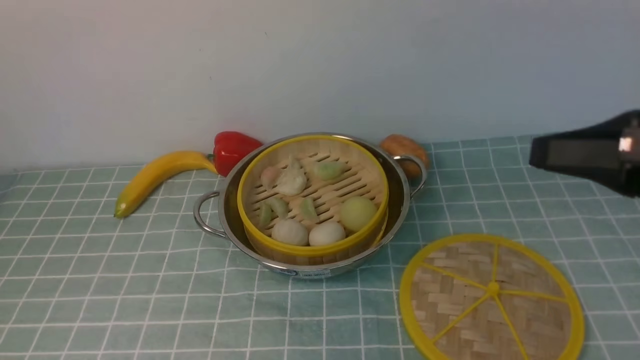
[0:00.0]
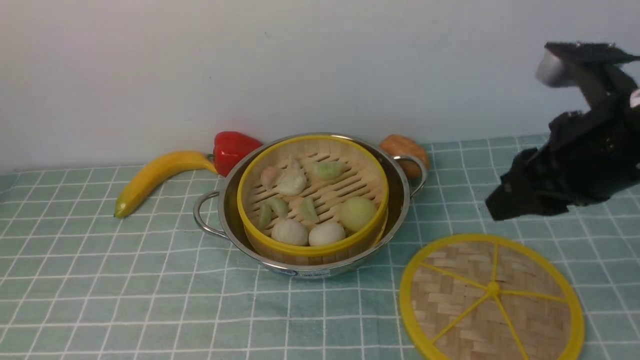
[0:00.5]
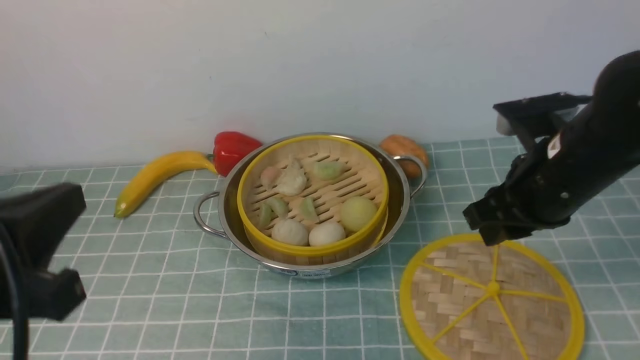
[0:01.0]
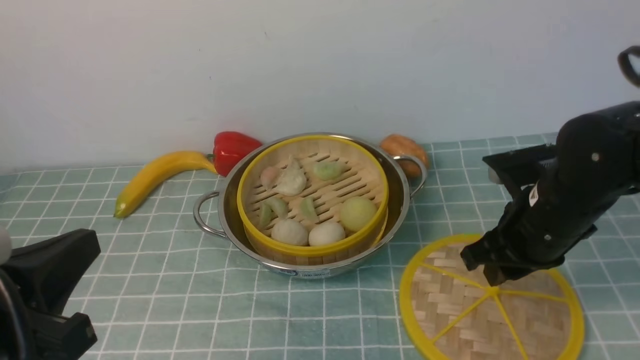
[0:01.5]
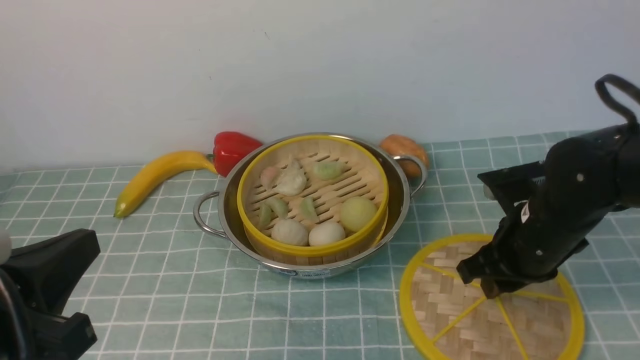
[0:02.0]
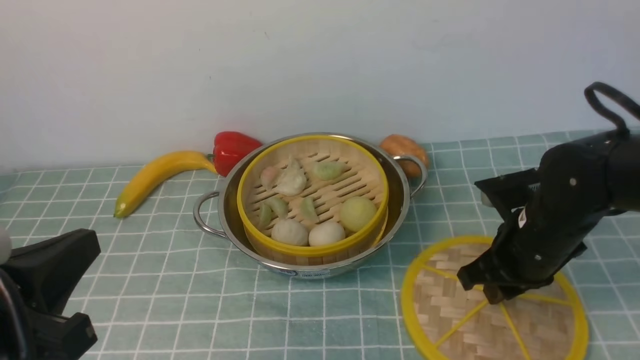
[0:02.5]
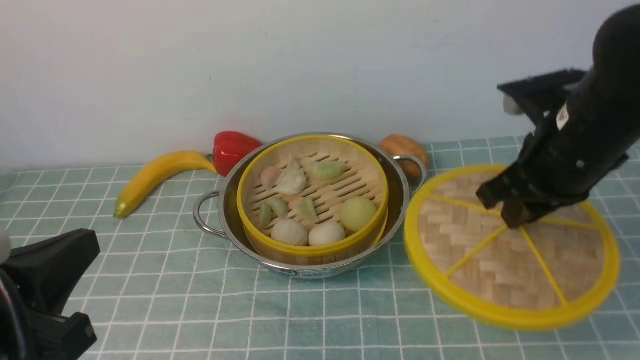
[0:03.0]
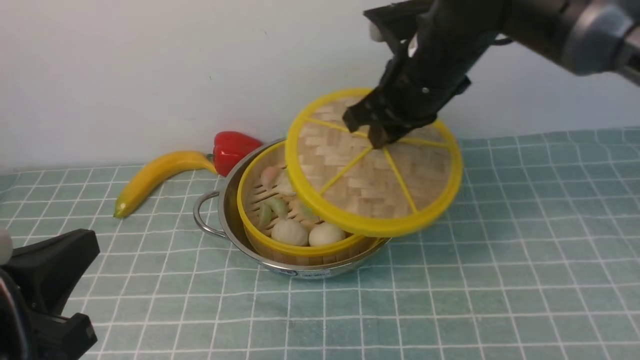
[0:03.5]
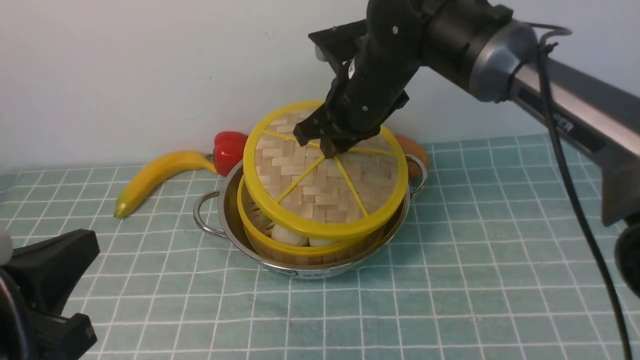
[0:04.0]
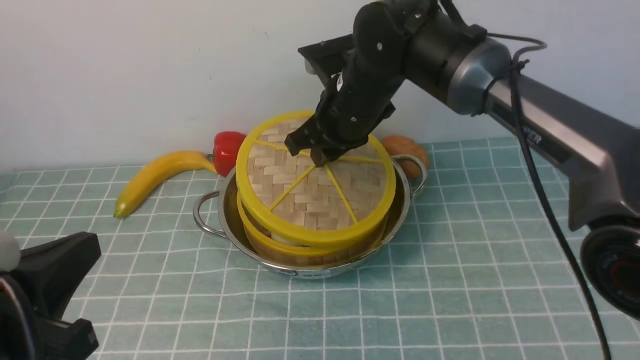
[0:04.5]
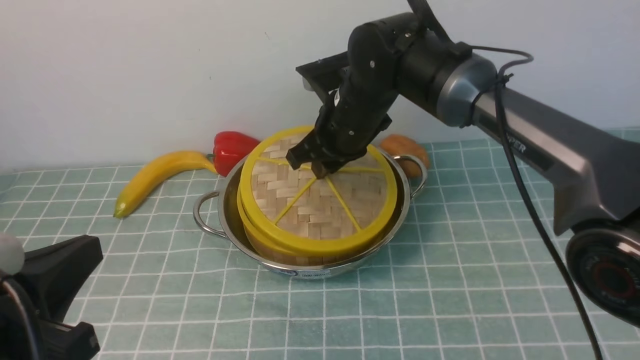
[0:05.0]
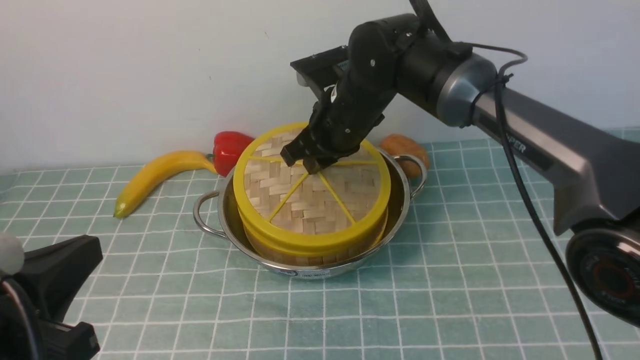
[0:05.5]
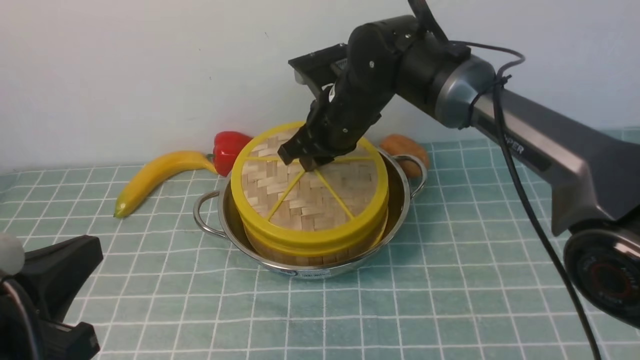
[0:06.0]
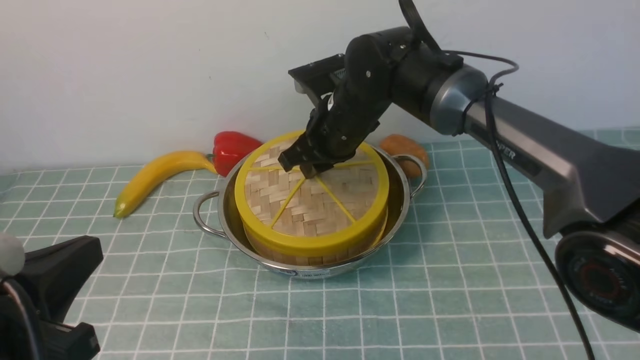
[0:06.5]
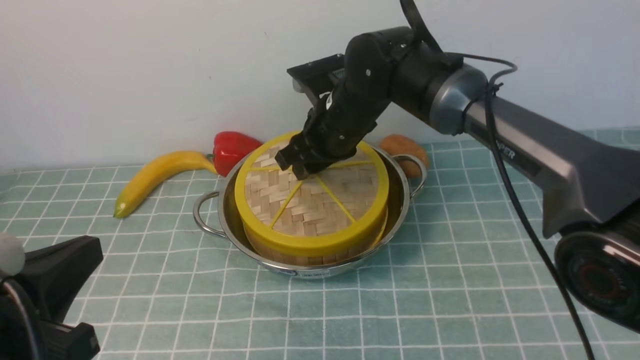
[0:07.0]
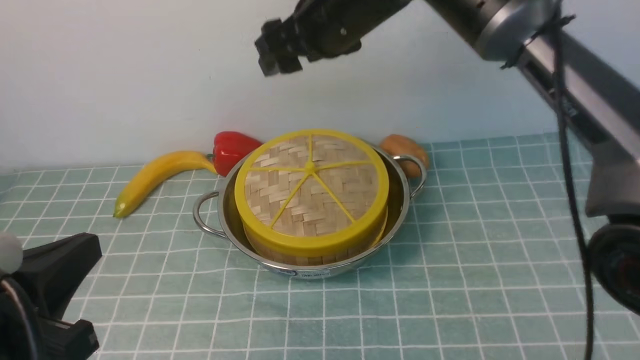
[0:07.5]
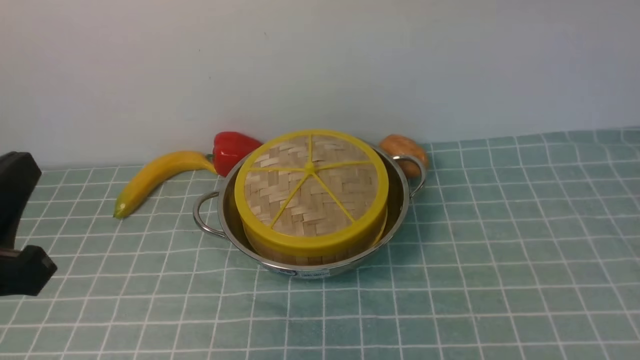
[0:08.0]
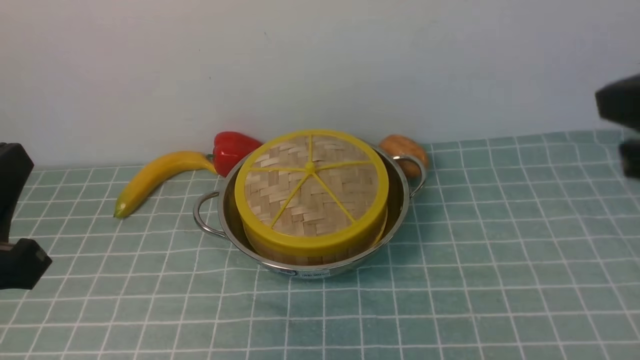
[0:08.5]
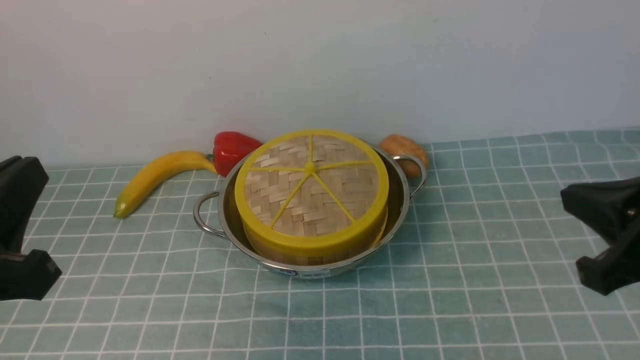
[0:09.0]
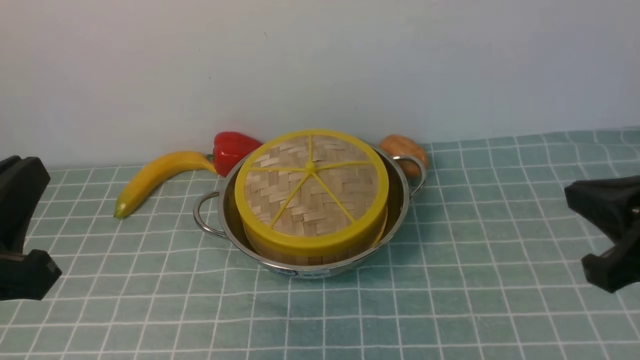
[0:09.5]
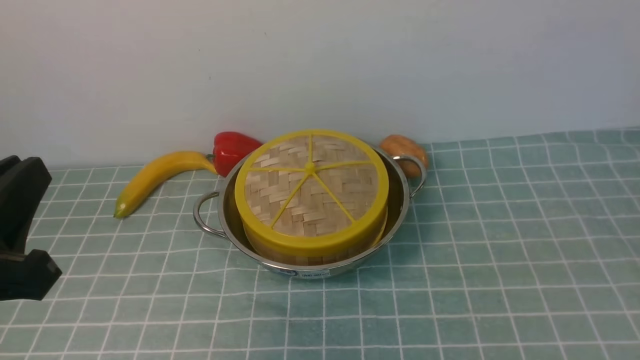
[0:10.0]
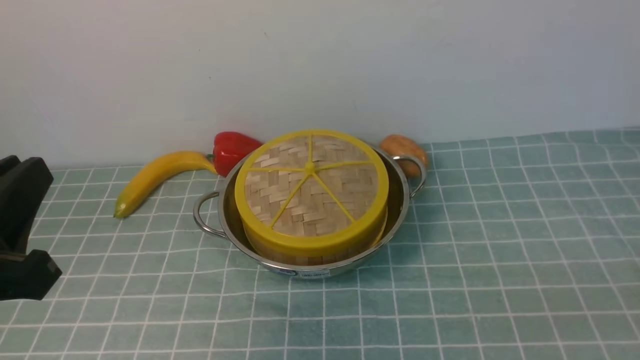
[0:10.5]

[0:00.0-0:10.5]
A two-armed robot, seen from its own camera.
Task of the whole recording: place the steamer in the pot on the blue tablecloth, and put the lid on the steamer.
Step, 0:00.0 to 0:02.5: use the right arm to lift the lid of the steamer.
Step, 0:03.0 to 0:07.5: use the right arm to place the steamer lid on the steamer.
0:00.0 to 0:02.0: The right gripper heads downward and forward, covering approximately 20 cm; the left gripper is displaced downward and backward by approximately 30 cm.
0:02.0 to 0:04.0: The right gripper shifts roughly 20 cm to the left, forward and upward.
0:04.0 to 0:06.5: The right gripper is displaced downward by some 5 cm.
0:06.5 to 0:08.5: The right gripper moves backward, to the right and upward, approximately 35 cm, and opens, then closes again.
0:08.5 to 0:10.5: The right gripper heads downward, backward and to the right, covering approximately 25 cm.

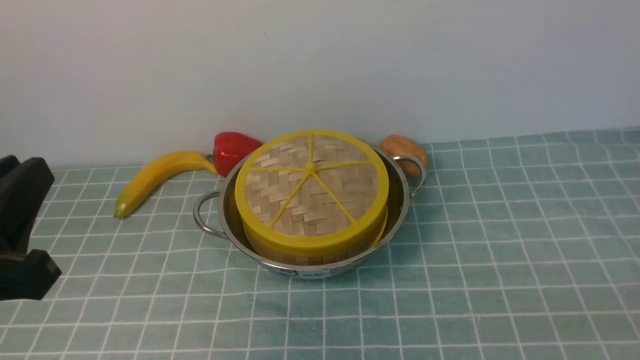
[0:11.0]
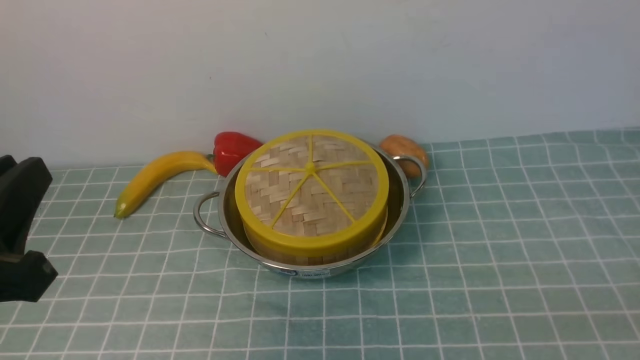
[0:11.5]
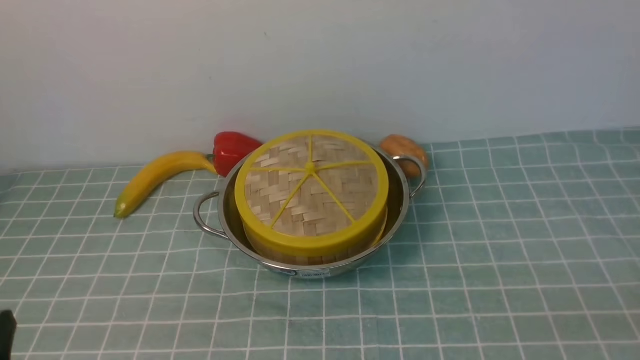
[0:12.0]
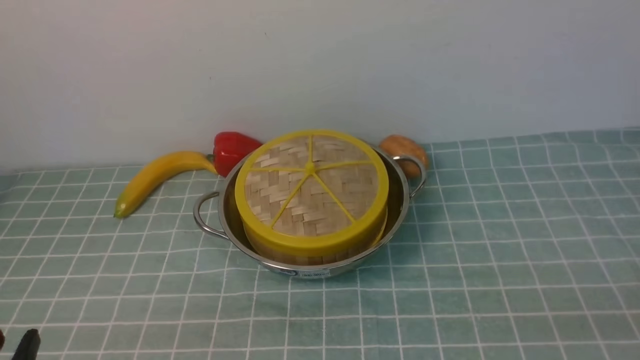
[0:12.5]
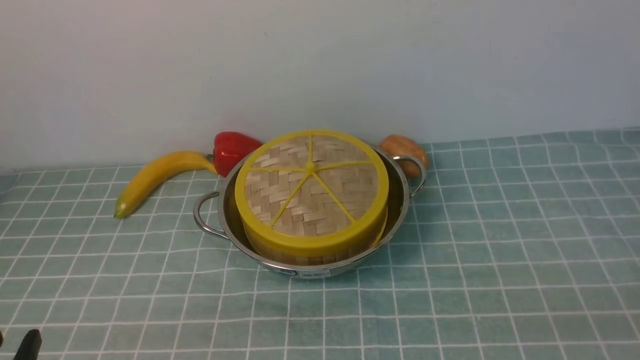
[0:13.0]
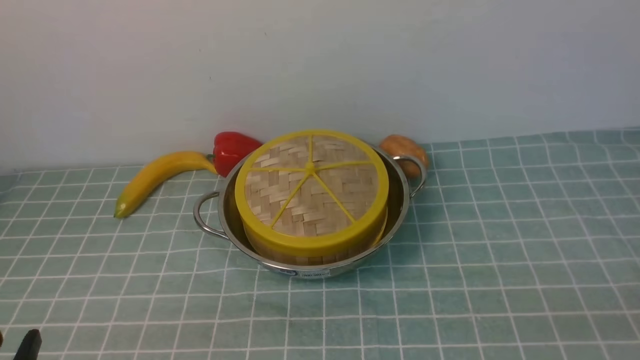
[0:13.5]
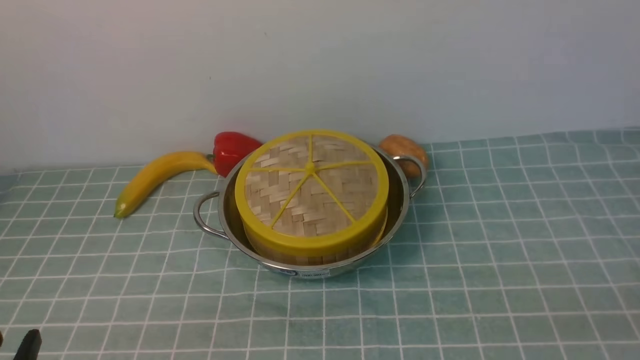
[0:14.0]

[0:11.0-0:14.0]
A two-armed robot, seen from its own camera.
Task of the whole recording: place the steamer in the pot on the blue tablecloth, and put the lid on the steamer.
0:11.0 to 0:12.5: The left gripper shifts about 15 cm downward and backward.
0:12.5 to 0:14.0: Both grippers stay put.
